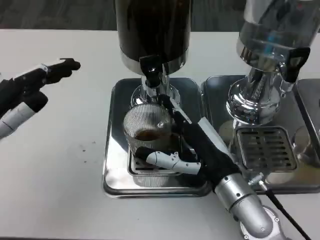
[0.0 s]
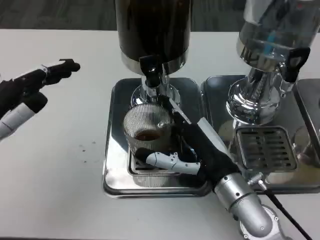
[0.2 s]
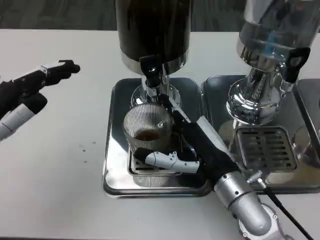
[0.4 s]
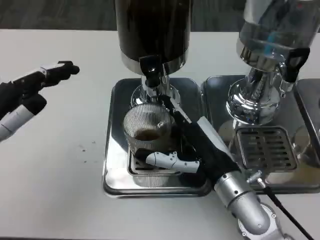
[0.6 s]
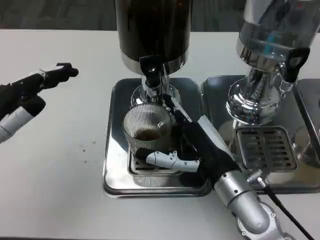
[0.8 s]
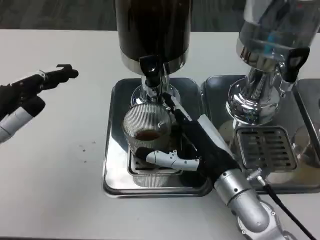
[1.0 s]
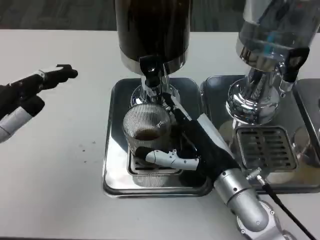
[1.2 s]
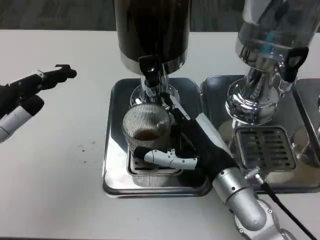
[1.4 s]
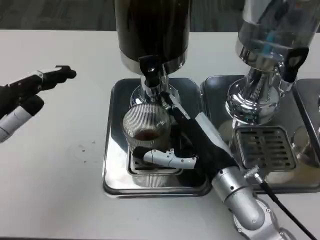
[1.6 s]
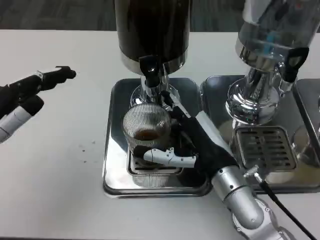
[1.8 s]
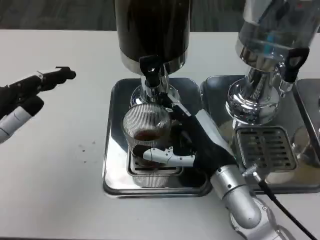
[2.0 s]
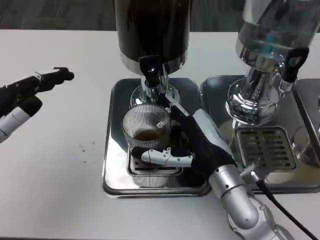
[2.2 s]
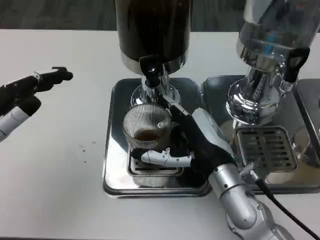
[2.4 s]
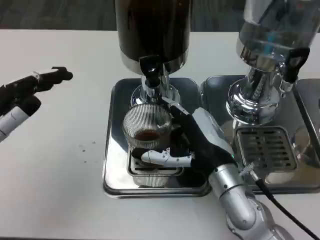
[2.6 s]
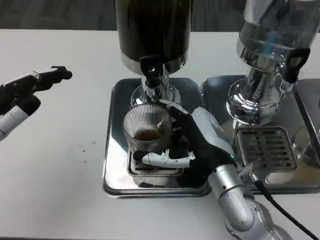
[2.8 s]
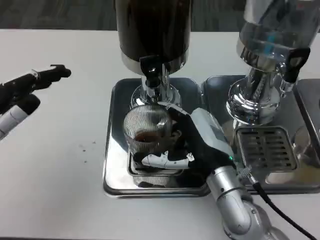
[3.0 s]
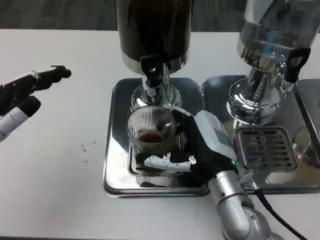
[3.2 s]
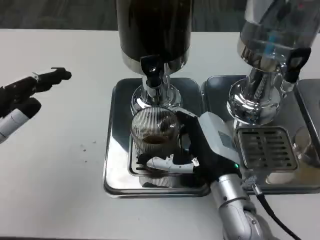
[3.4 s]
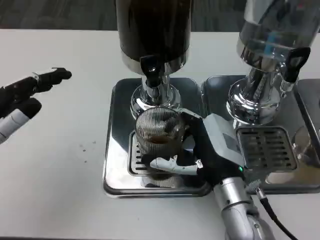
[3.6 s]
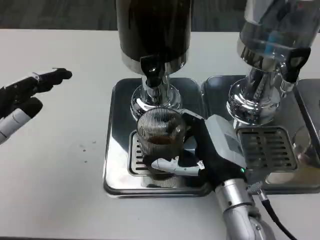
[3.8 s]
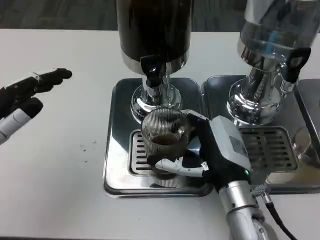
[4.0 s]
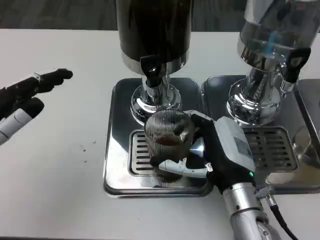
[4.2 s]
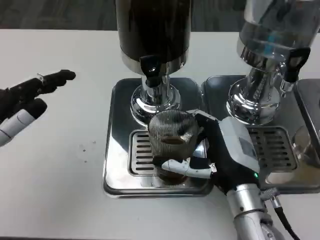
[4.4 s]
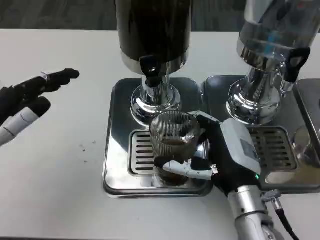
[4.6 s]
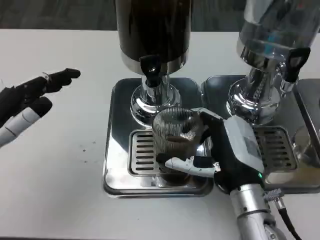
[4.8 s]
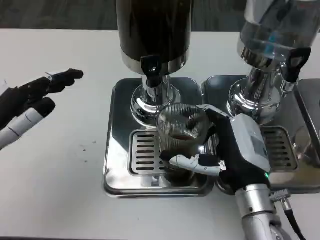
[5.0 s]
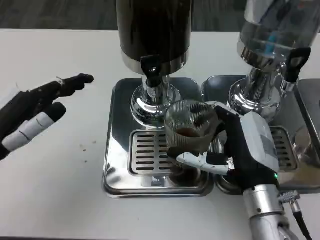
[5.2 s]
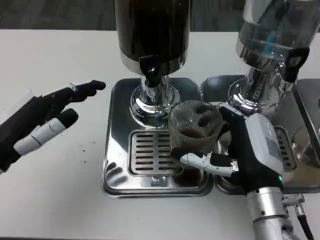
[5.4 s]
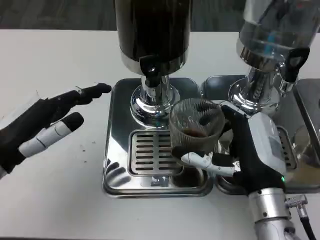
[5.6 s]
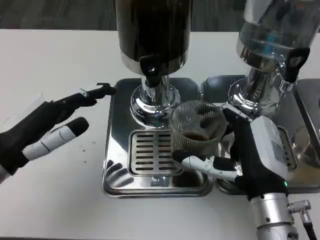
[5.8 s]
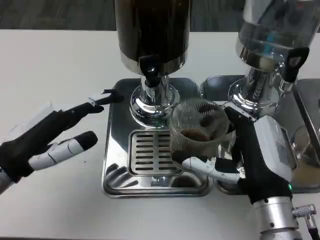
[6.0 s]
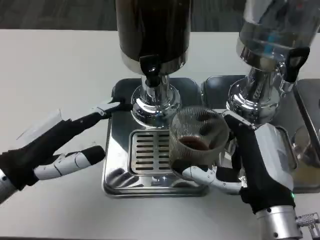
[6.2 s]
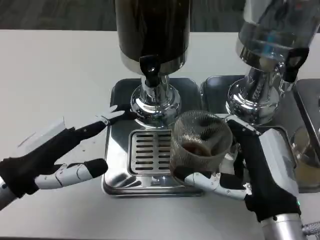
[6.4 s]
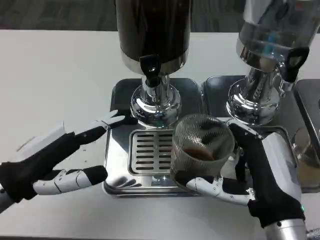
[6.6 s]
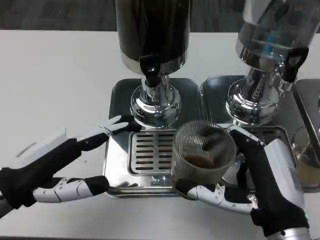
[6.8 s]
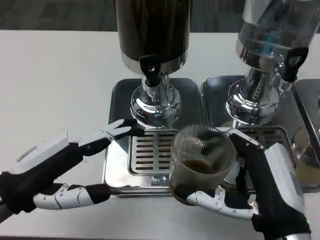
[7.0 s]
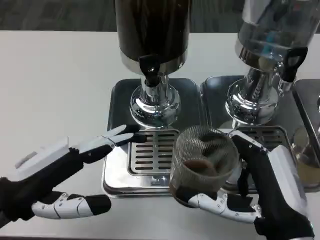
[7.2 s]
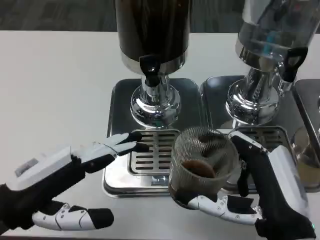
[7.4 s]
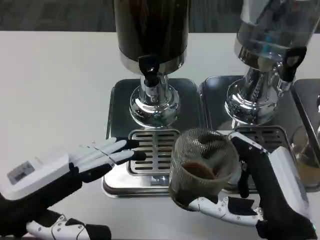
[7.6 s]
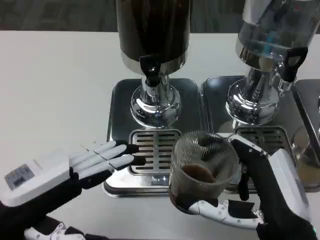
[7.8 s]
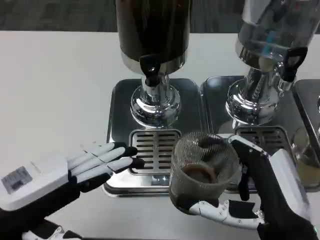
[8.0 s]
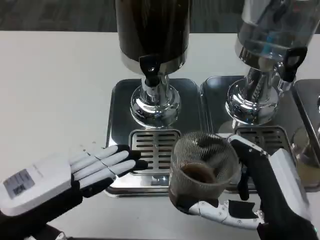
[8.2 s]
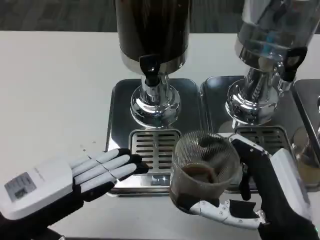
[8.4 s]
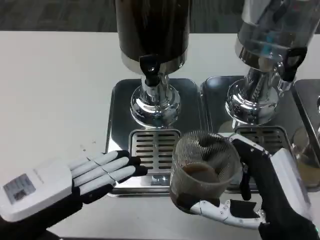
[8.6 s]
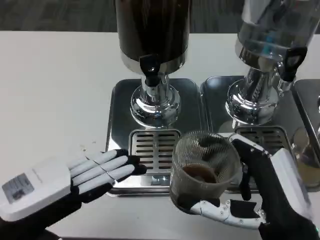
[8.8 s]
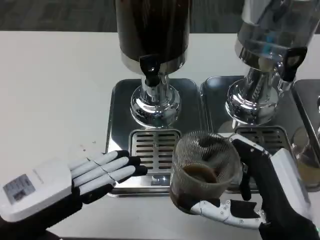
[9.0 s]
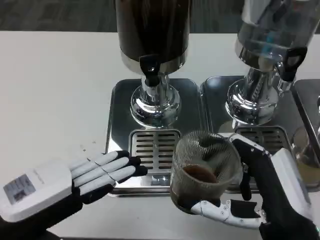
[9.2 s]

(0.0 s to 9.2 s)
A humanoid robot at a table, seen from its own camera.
Task of the whole recording: Grasp the cup under the faucet to collect the drink, then remove the cup.
0.0 s - 1.6 s: The hands move only a little.
1.6 s - 3.0 s: The hands move only a little.
3.0 s - 4.6 s: The hands move only a little.
4.6 s - 6.2 s: The right hand moves some 5 cm.
6.2 s - 7.6 s: The right hand changes place by approximately 5 cm, while the left hand shifts about 5 cm backward.
7.6 s - 9.2 s: There are only small adjustments of the hands.

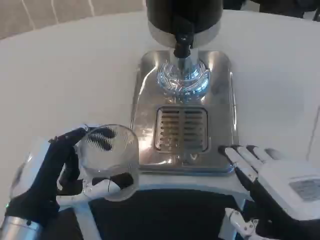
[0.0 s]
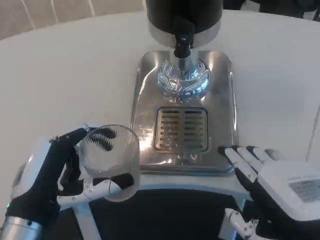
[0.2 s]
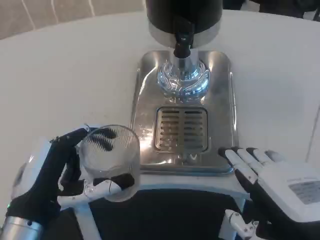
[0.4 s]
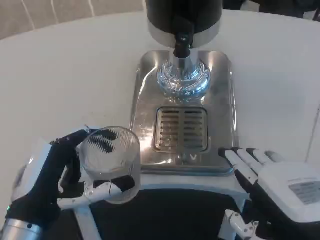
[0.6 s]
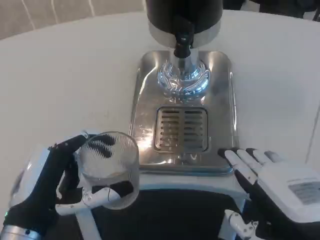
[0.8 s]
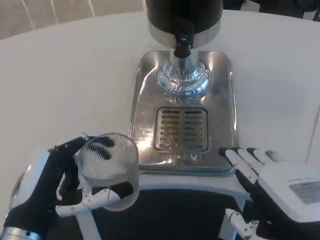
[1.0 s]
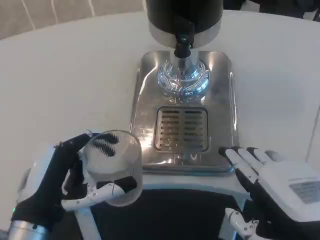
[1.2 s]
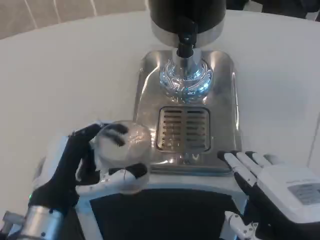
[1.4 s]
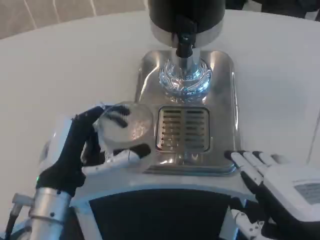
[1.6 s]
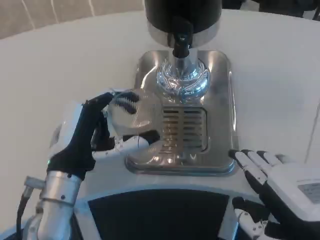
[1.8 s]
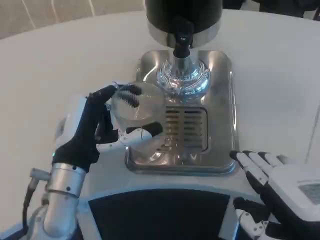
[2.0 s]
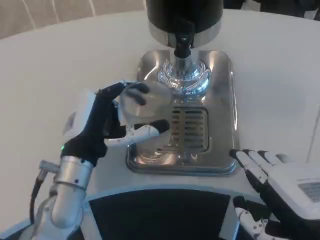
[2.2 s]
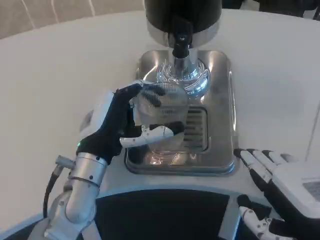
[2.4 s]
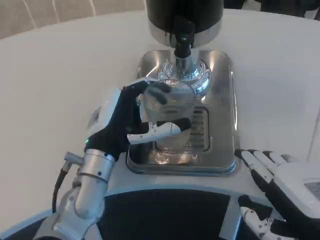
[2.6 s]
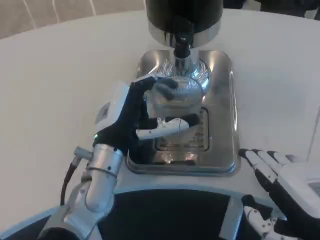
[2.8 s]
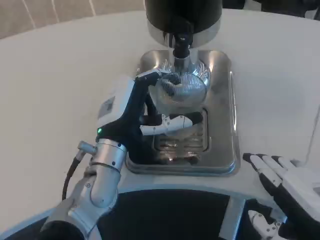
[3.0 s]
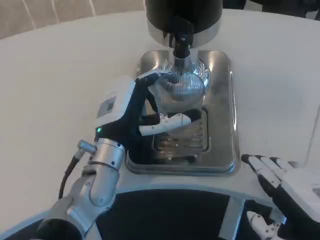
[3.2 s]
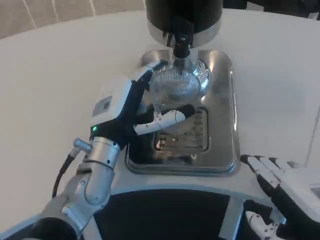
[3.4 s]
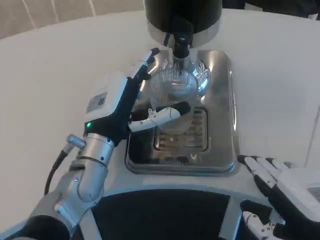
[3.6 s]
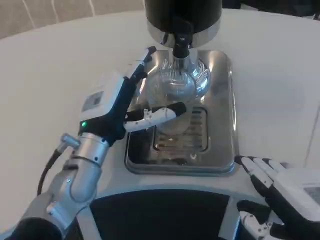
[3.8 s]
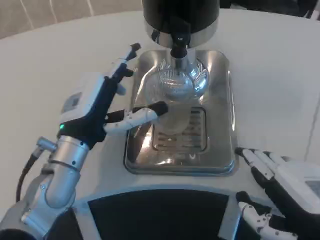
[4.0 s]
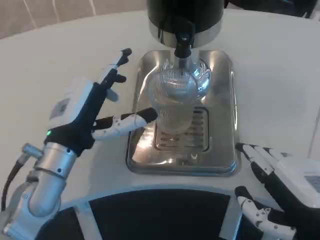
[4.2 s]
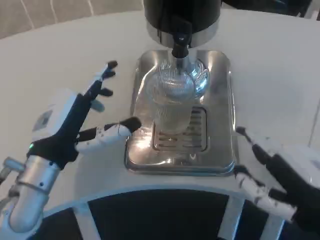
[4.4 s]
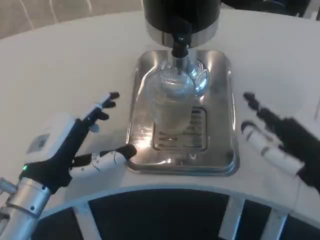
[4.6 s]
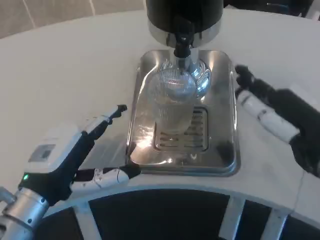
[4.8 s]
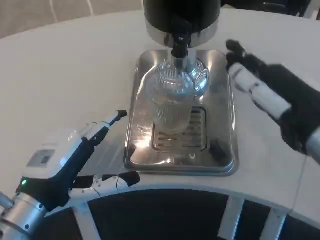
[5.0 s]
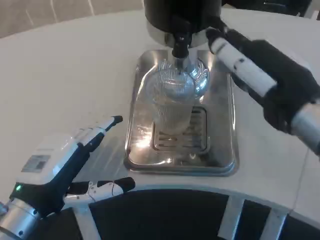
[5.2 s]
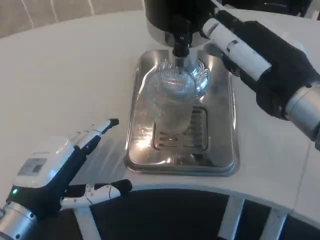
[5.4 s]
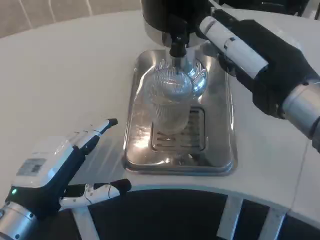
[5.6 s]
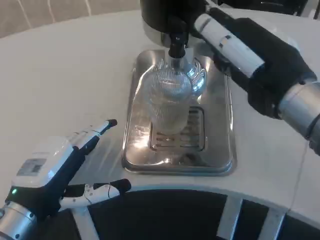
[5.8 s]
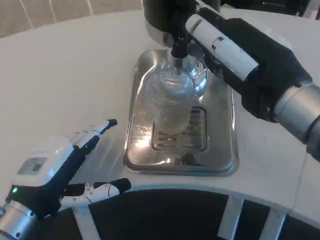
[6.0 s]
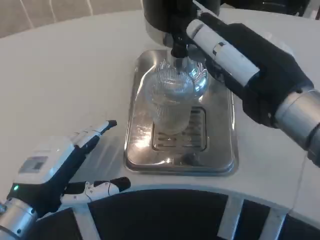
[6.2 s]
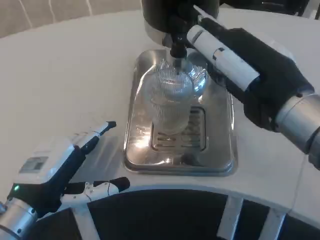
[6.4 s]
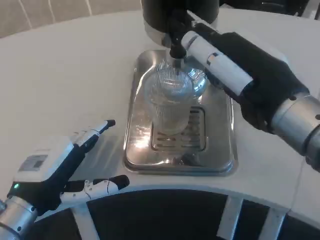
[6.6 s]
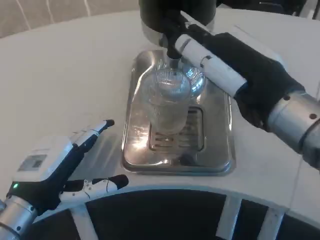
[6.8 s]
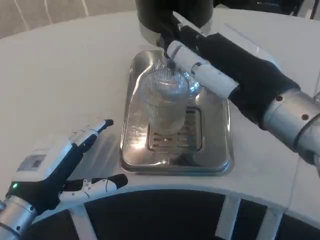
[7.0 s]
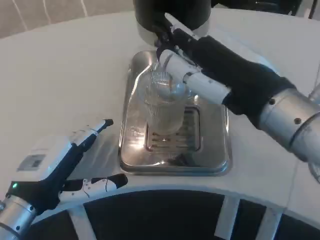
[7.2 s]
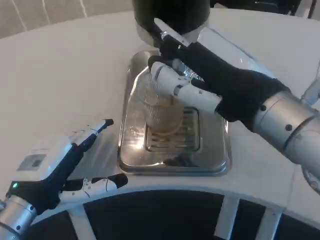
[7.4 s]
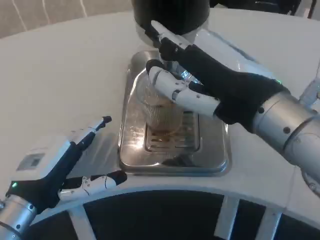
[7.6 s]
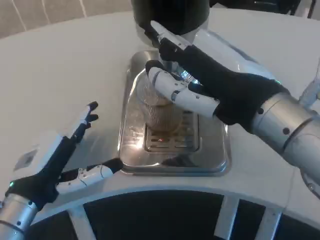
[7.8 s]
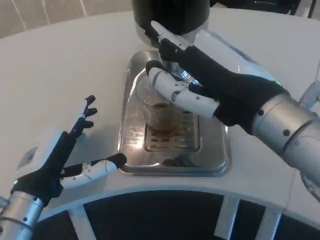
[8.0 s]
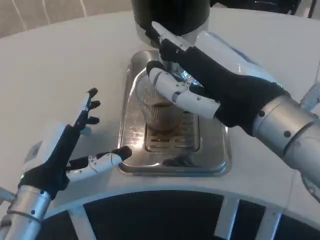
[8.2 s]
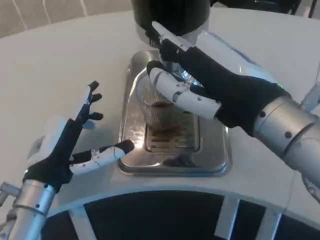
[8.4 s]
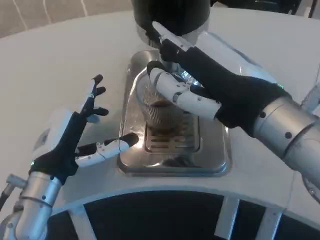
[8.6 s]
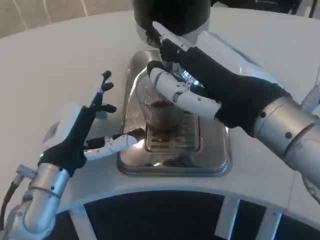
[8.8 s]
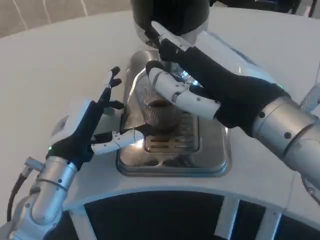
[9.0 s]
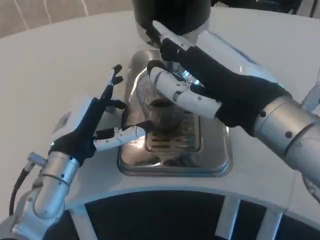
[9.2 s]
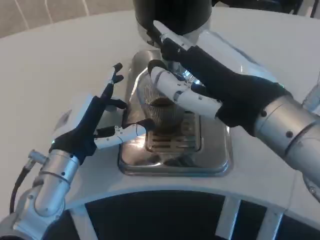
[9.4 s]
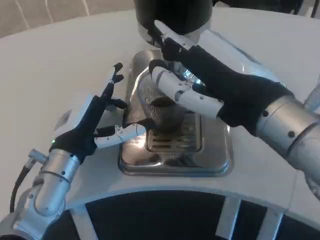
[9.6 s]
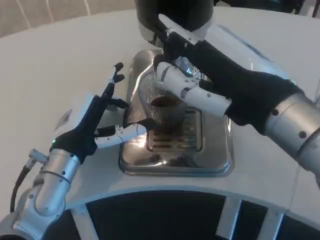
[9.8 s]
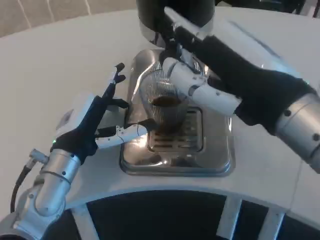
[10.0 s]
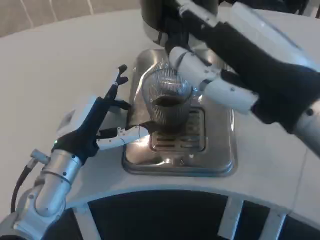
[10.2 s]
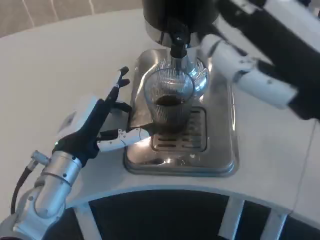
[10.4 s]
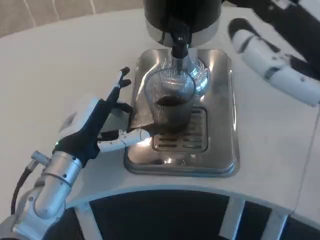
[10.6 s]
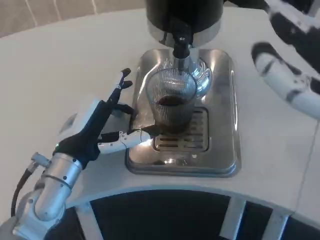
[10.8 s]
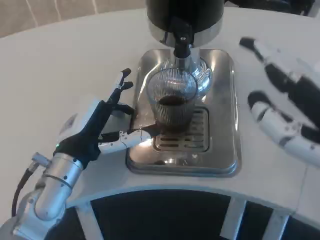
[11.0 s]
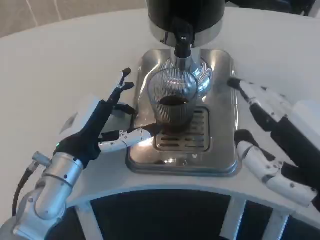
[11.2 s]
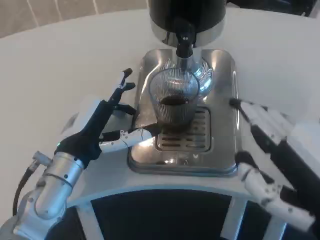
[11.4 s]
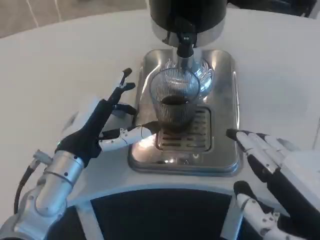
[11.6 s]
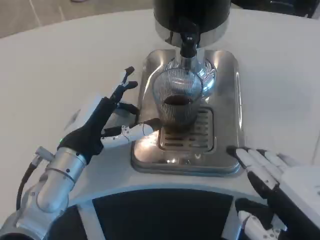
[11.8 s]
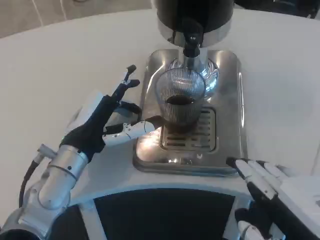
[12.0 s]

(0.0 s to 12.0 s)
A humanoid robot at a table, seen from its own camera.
Task of the whole recording: Grasp the cup under the faucet to collect the drink, then remove the cup.
0.0 s - 1.6 s: The left hand goes roughly 5 cm forward.
1.6 s - 3.0 s: The left hand travels to the right and forward by about 10 cm.
3.0 s - 4.4 s: The left hand is displaced to the left by some 10 cm.
4.4 s - 6.0 s: The left hand shifts roughly 5 cm backward. Meanwhile the right hand moves upward and forward, approximately 10 cm.
7.6 s - 9.0 s: The left hand moves forward and to the right, approximately 10 cm.
9.0 s - 10.4 s: The right hand shifts by some 5 cm.
10.4 s - 12.0 s: The right hand heads downward and backward, covering approximately 15 cm.

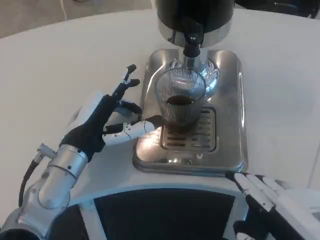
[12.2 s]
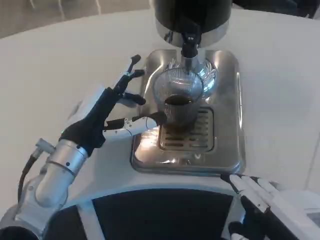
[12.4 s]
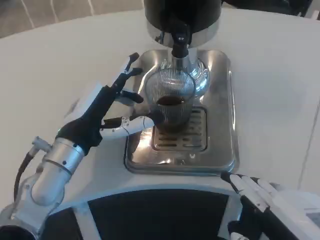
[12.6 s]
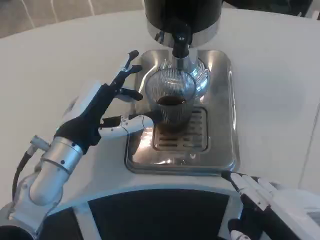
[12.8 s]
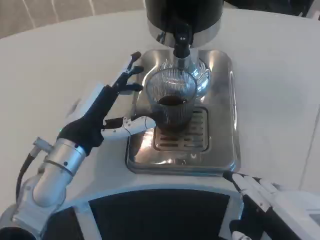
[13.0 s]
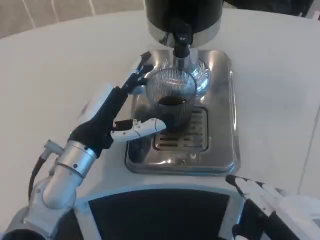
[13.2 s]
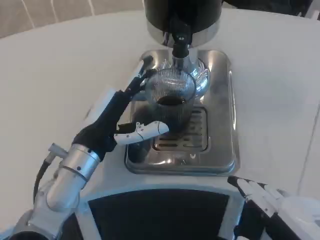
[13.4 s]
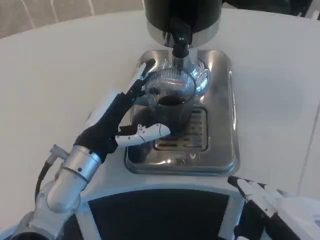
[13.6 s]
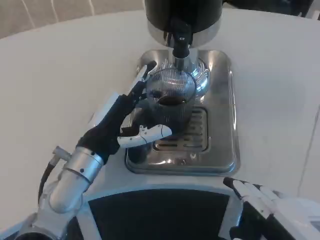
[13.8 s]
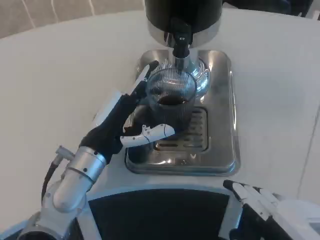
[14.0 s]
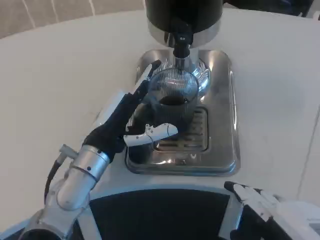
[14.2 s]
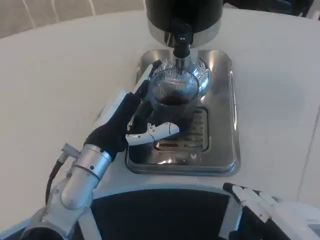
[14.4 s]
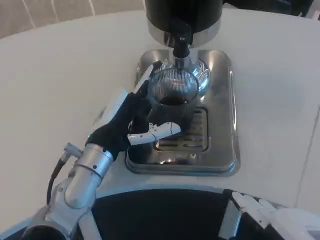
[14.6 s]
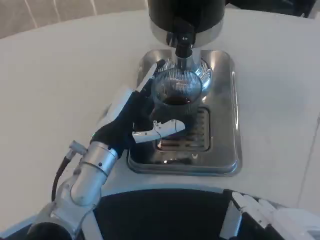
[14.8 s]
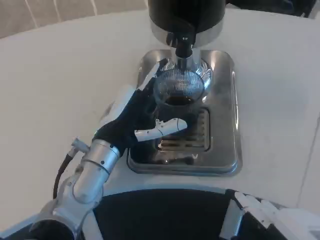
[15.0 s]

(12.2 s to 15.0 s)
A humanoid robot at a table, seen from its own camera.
Task of the whole recording: Grasp the cup under the faucet to collect the drink, then remove the cup.
13.6 s - 15.0 s: The hands make only small movements.
